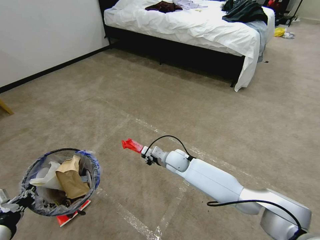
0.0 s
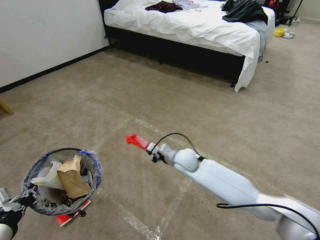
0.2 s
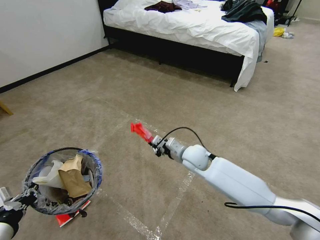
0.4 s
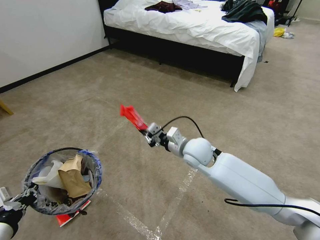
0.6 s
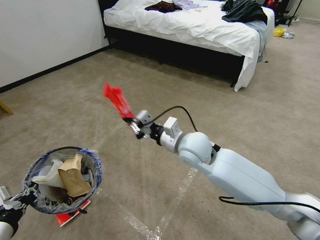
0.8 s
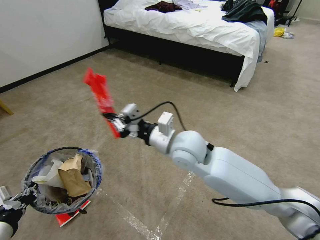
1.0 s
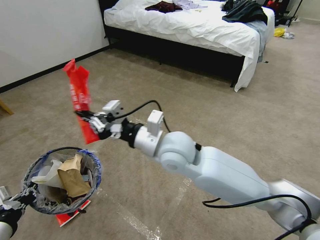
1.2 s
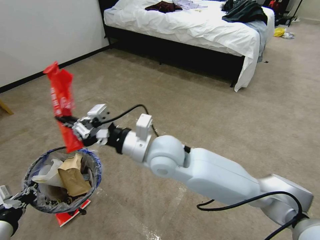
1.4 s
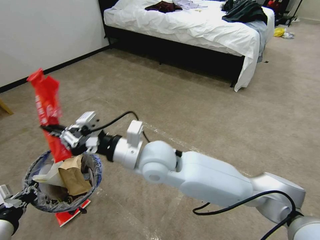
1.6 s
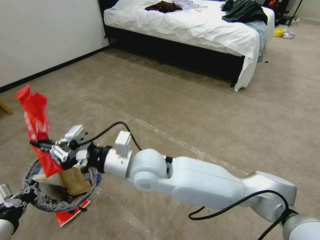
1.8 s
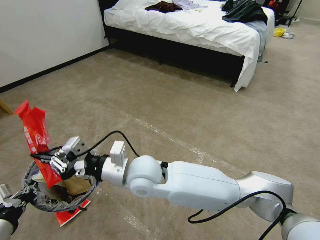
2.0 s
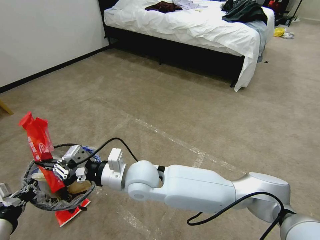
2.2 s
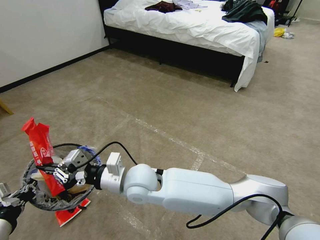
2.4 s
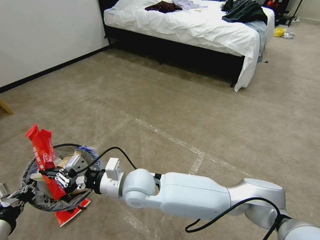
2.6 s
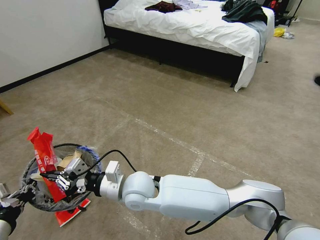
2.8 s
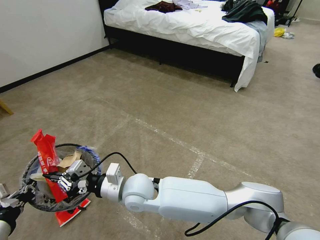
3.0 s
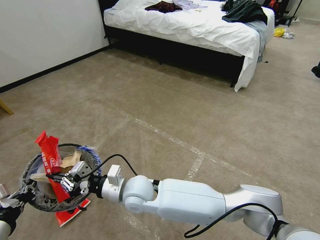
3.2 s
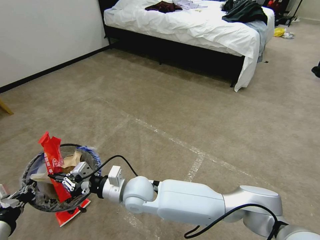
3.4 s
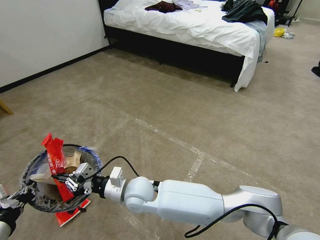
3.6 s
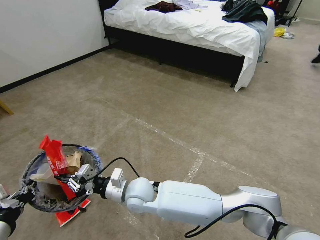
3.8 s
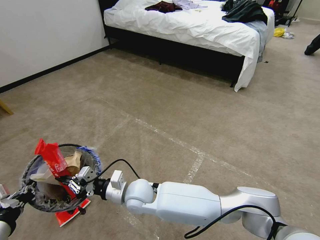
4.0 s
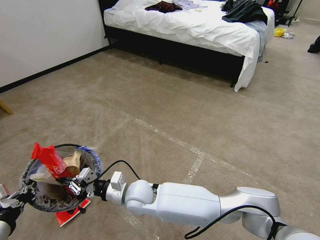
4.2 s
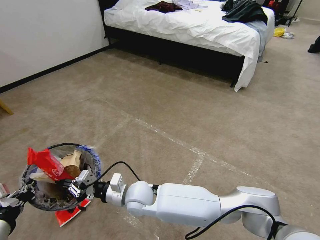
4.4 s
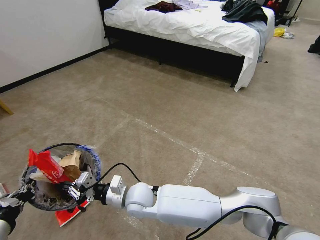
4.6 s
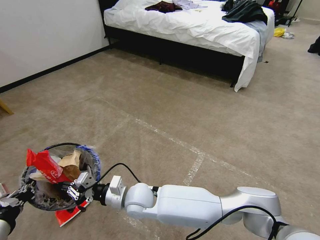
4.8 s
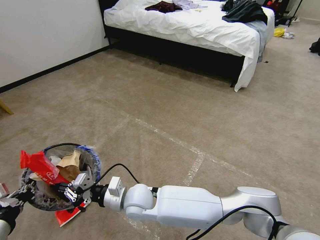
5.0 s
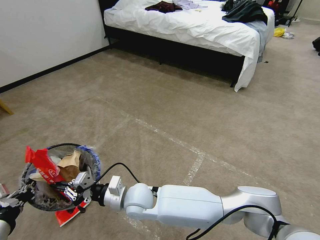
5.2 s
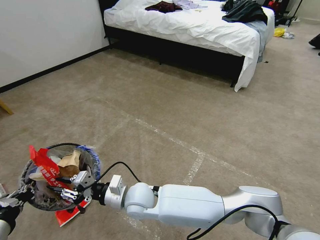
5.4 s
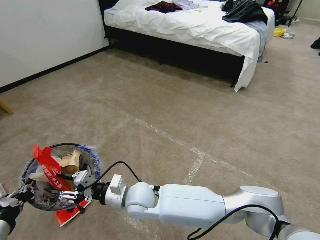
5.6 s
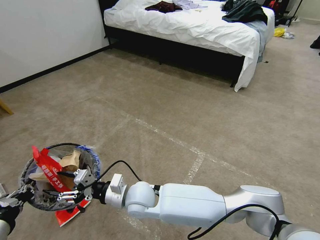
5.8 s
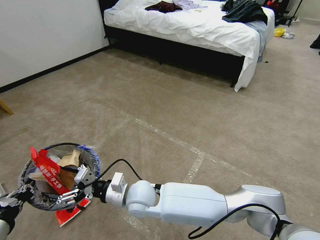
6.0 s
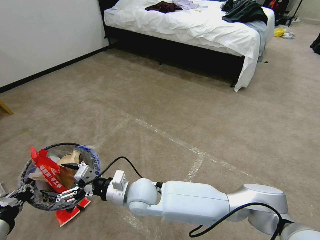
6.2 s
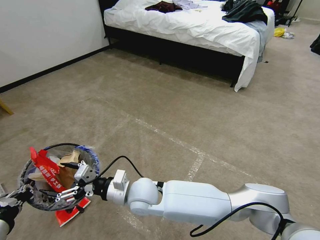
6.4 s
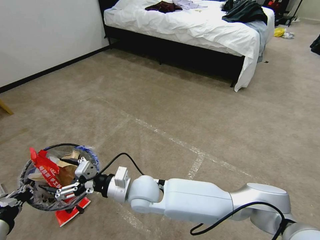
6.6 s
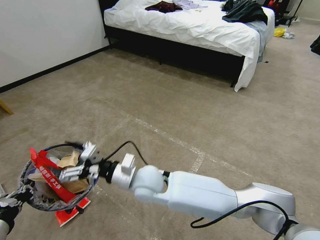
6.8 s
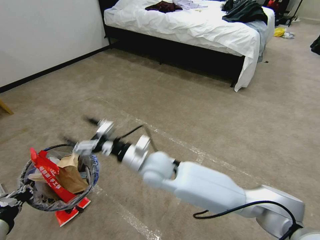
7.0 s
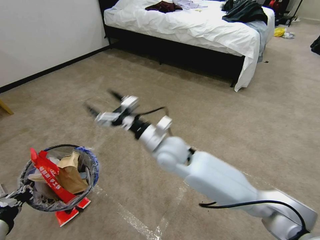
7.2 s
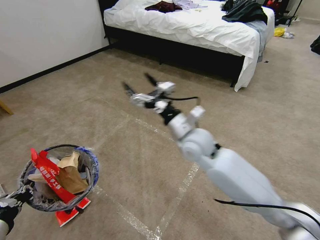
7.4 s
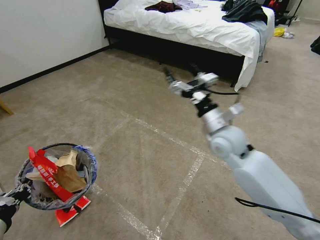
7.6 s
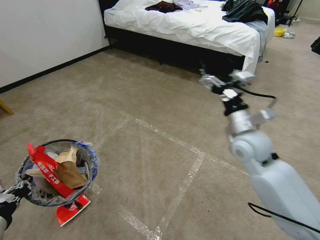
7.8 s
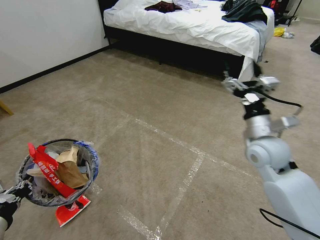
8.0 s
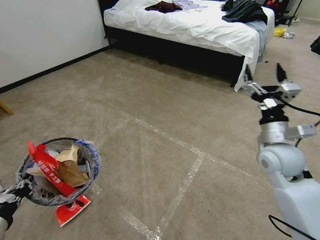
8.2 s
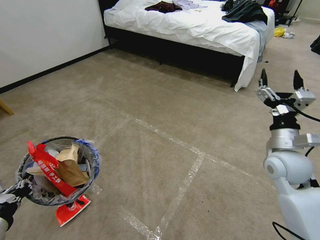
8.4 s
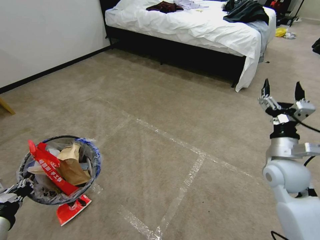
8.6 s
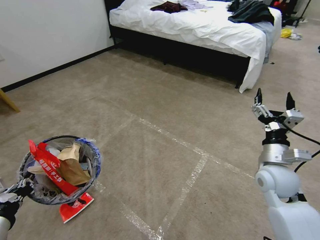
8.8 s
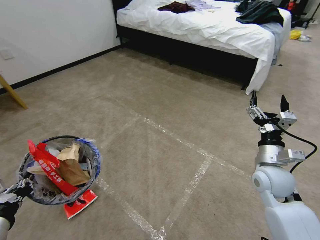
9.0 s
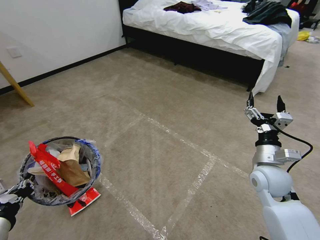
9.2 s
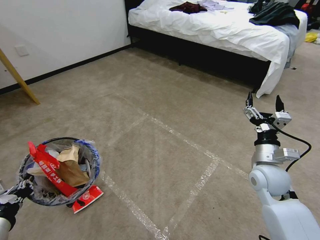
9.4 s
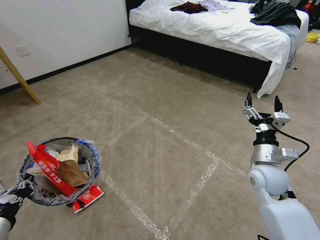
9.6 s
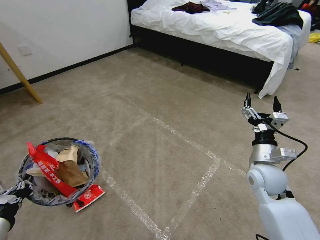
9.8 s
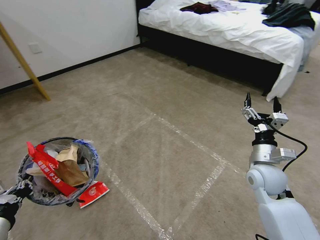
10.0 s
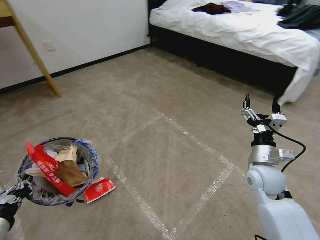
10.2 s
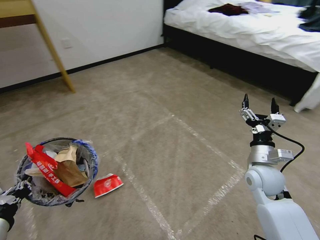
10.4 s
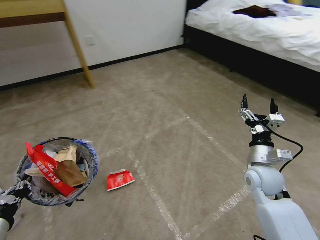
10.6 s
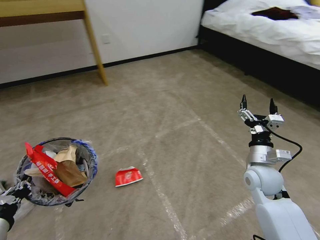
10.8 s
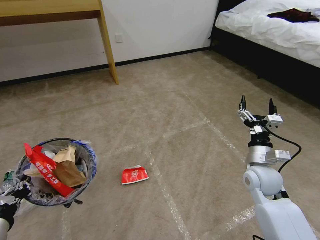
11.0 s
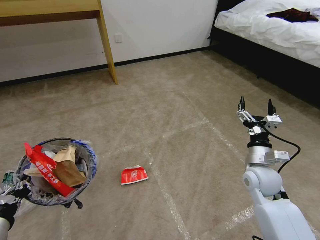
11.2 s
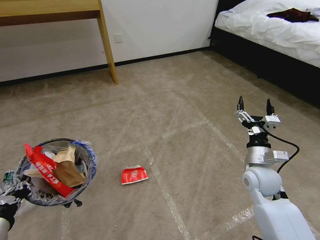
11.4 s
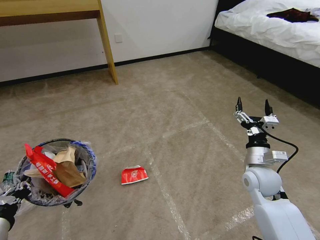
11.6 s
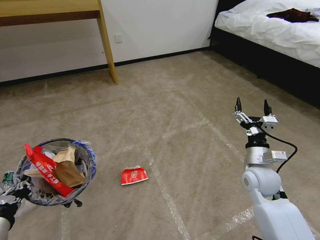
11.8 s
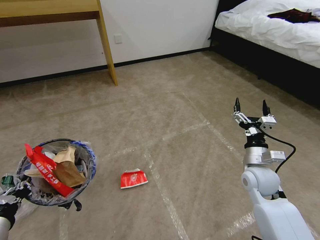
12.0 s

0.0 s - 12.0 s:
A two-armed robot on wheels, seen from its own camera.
Task of the whole recording: Pick up the trash bin and place the garbage on the floor into it.
0.0 s - 1.6 s: The right gripper moves upward and backward, about 25 cm.
1.6 s - 3.0 s: The right gripper shifts roughly 15 cm downward and to the left.
3.0 s - 4.4 s: The right gripper heads downward, covering approximately 5 cm.
4.4 s - 6.0 s: The right gripper opens up.
6.0 s - 7.6 s: The right gripper shifts approximately 30 cm to the right, upward and forward.
7.6 s - 9.0 s: The right gripper goes roughly 20 cm to the right, backward and downward.

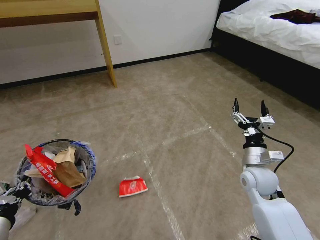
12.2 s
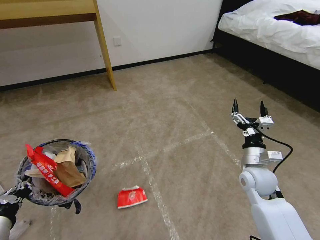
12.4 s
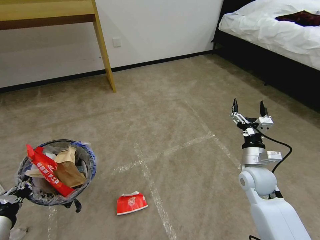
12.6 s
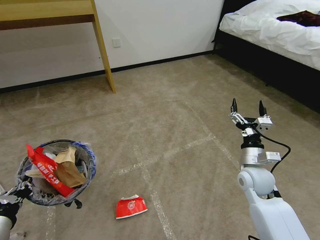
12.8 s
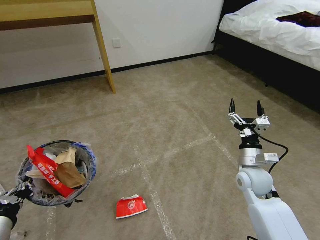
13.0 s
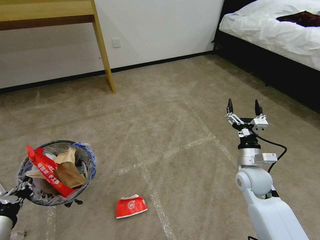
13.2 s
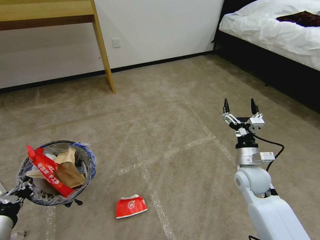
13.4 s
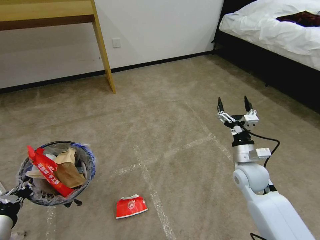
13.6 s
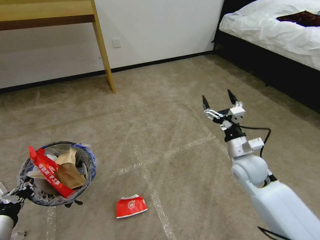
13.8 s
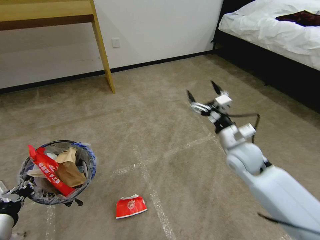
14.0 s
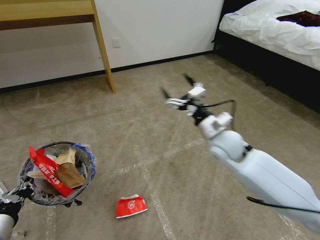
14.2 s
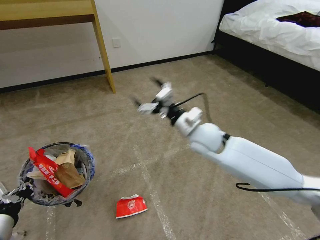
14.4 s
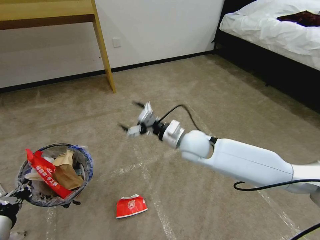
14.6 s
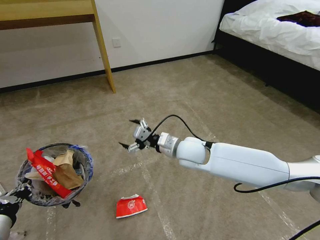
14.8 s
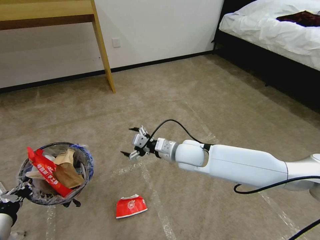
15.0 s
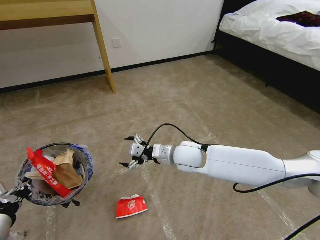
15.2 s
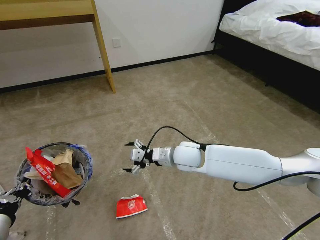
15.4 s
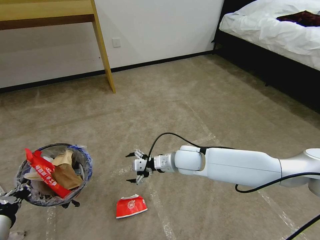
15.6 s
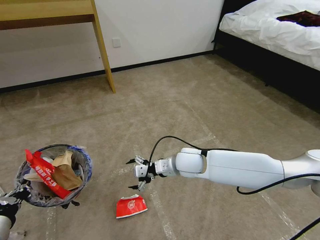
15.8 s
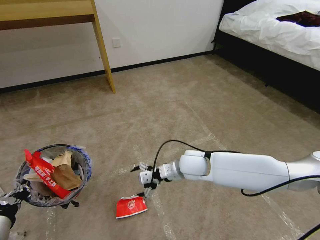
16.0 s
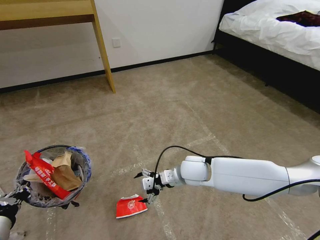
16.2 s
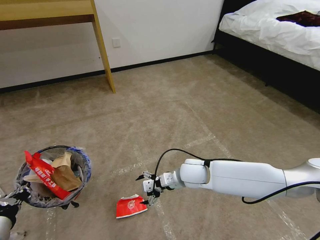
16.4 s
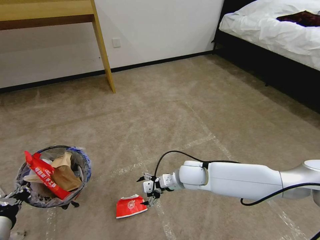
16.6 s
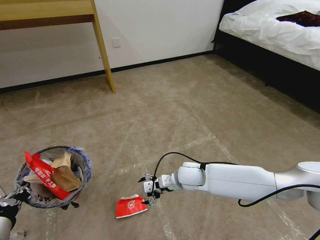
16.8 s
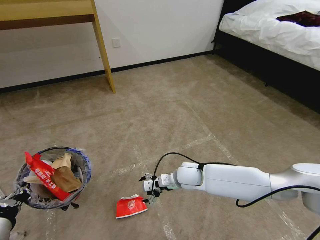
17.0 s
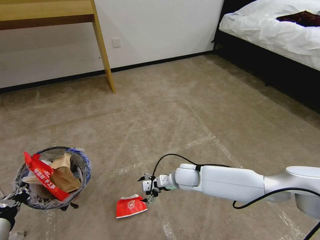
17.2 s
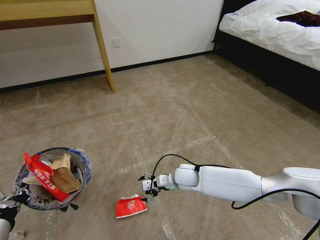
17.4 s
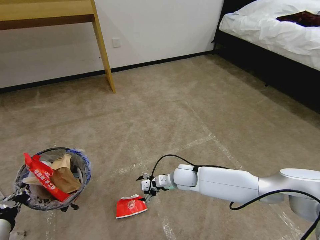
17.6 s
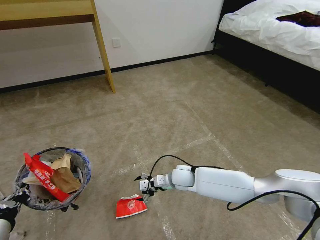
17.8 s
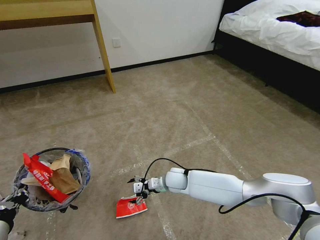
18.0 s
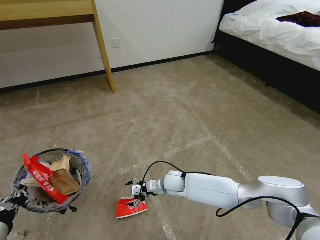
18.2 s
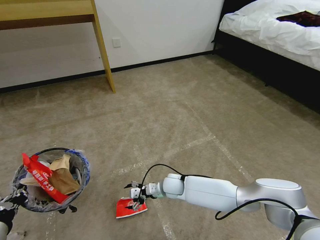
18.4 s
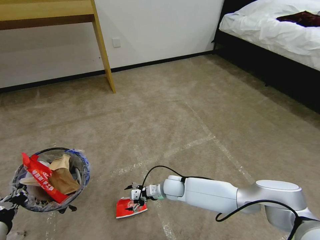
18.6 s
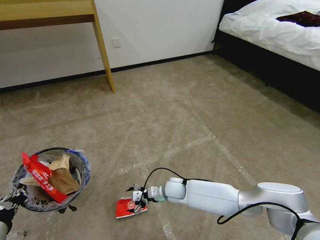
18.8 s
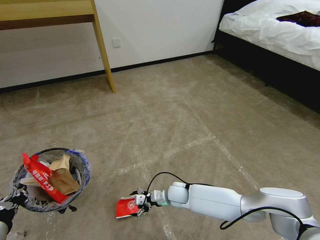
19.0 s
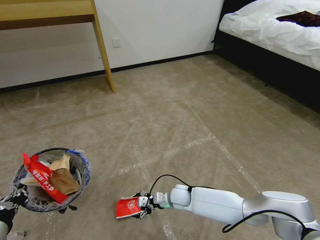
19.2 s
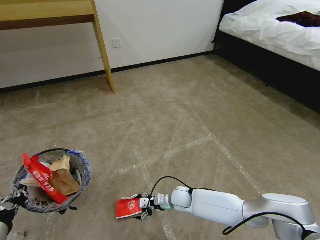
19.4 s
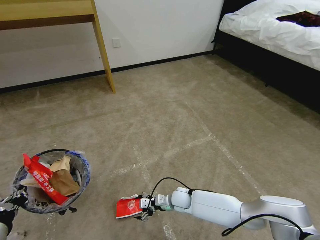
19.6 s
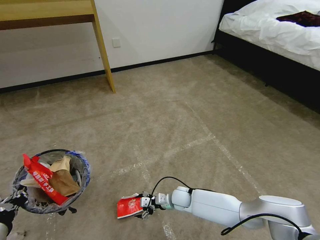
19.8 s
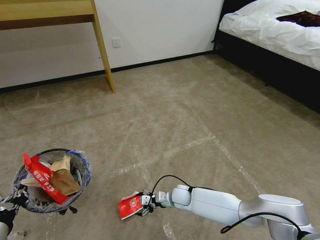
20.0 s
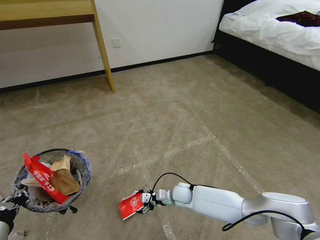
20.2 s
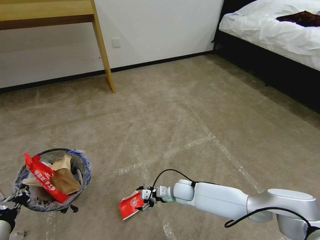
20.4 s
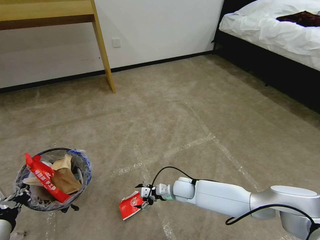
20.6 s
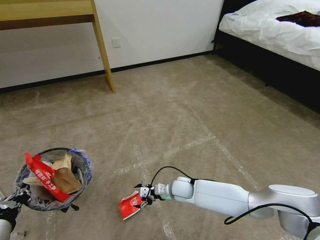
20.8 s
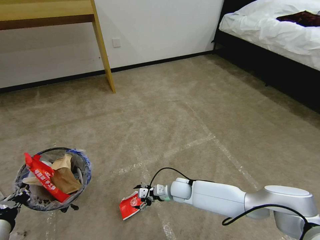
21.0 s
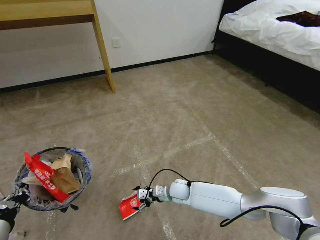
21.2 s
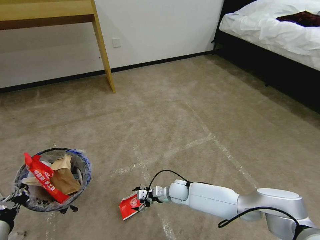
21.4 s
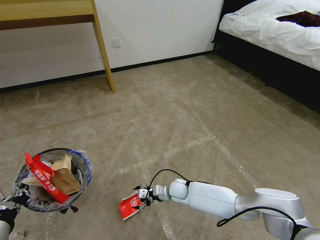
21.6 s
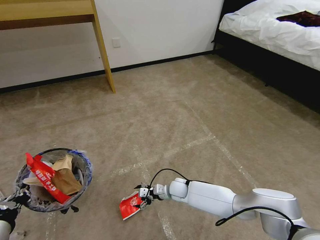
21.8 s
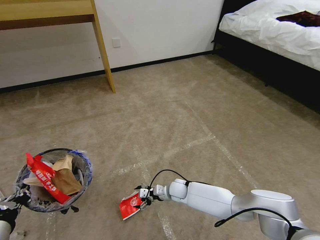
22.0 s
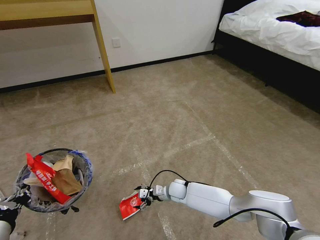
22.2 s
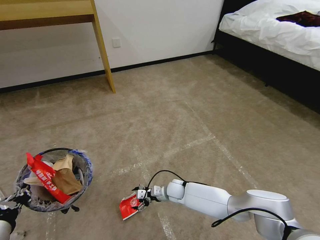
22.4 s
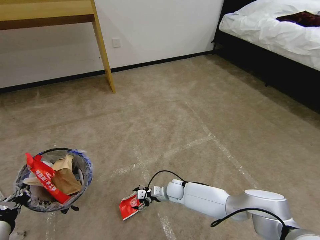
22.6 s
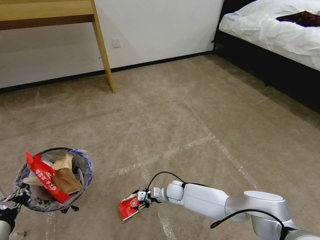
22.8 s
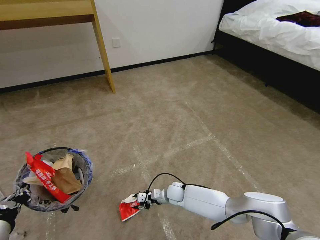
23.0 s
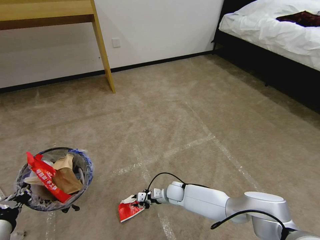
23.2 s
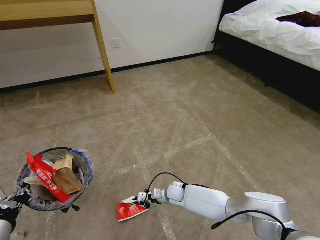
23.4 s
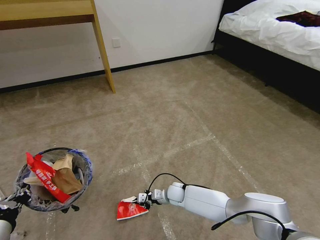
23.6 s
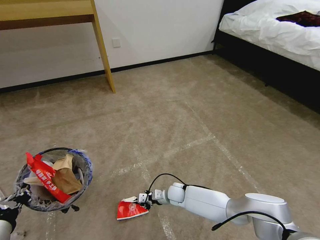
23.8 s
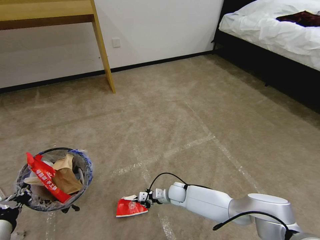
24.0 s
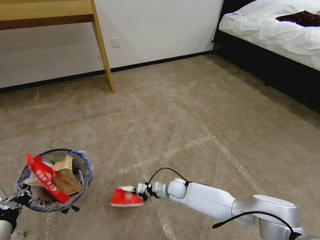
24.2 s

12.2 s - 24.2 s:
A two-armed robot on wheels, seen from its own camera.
Task of the whole recording: Pick up the trash bin and place the garbage on the floor into it.
12.2 s - 13.8 s: The grippers make only small movements.
13.8 s - 15.2 s: The right gripper travels to the left by roughly 20 cm.
15.2 s - 16.6 s: The right gripper shifts some 10 cm downward.
16.6 s - 18.2 s: The right gripper heads downward and to the left, covering some 10 cm.
18.2 s - 19.8 s: The right gripper shifts some 10 cm downward.
19.8 s - 22.6 s: The grippers move only a little.
22.6 s - 24.2 s: The right gripper closes.
